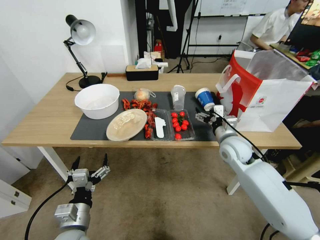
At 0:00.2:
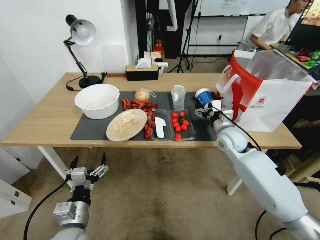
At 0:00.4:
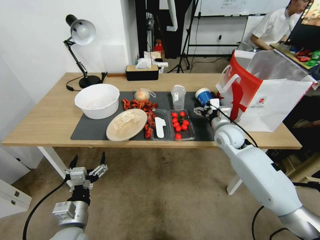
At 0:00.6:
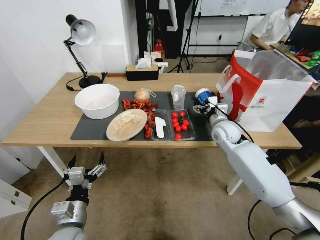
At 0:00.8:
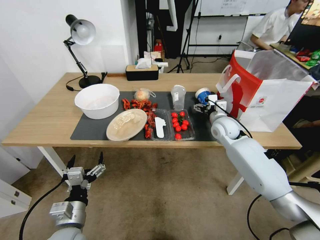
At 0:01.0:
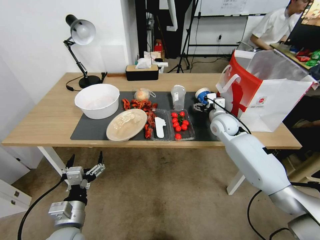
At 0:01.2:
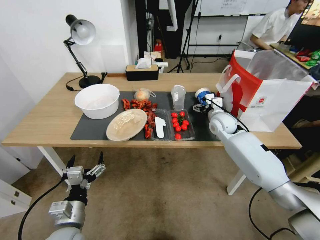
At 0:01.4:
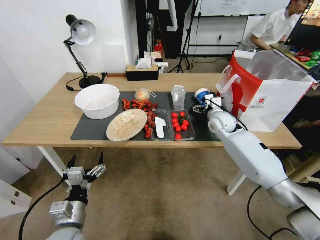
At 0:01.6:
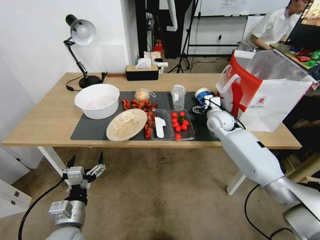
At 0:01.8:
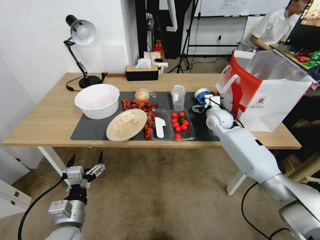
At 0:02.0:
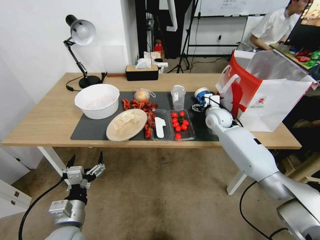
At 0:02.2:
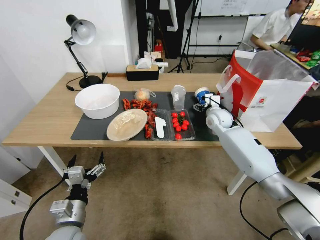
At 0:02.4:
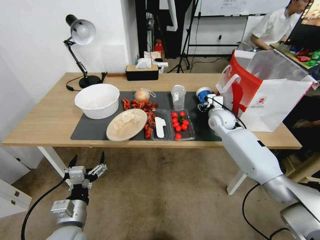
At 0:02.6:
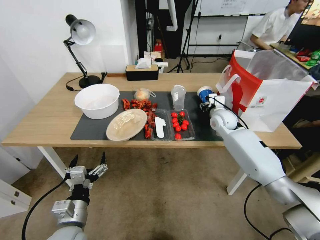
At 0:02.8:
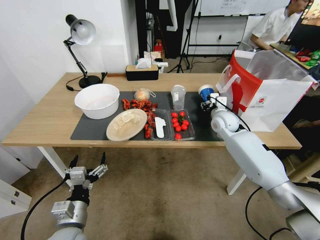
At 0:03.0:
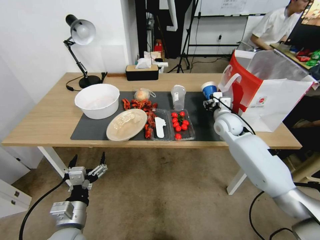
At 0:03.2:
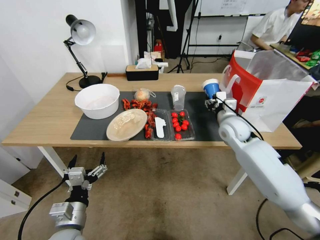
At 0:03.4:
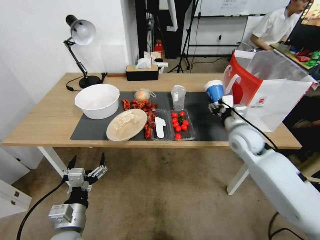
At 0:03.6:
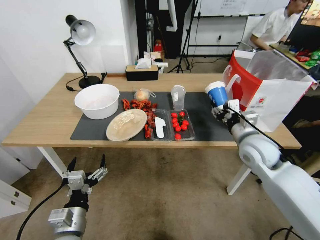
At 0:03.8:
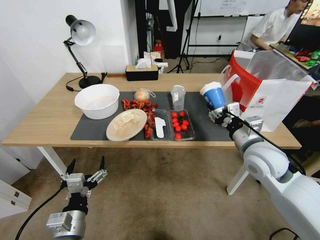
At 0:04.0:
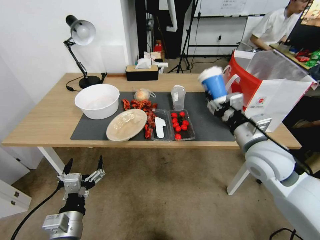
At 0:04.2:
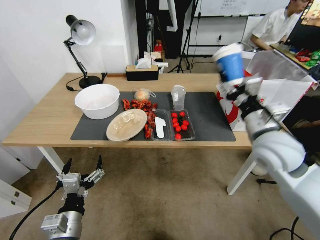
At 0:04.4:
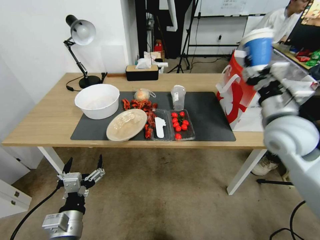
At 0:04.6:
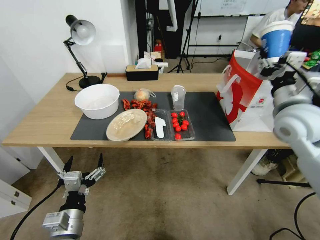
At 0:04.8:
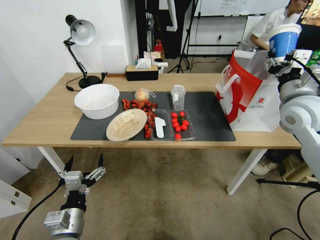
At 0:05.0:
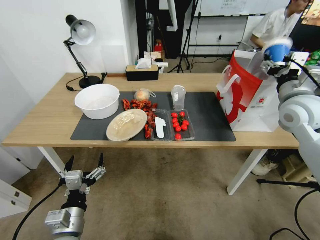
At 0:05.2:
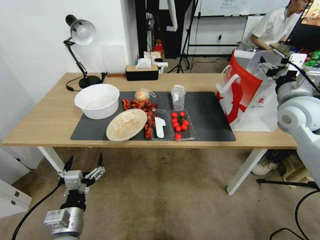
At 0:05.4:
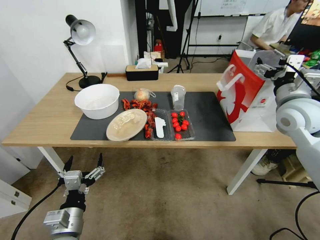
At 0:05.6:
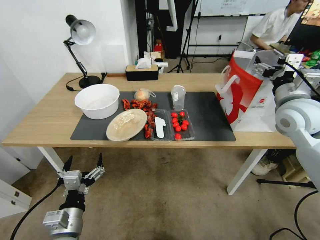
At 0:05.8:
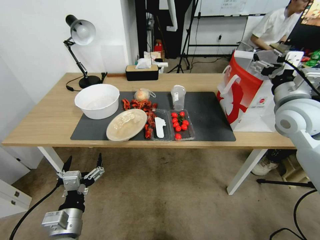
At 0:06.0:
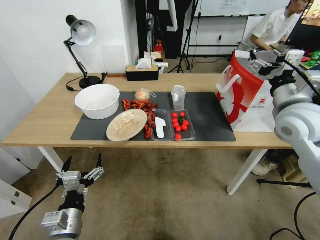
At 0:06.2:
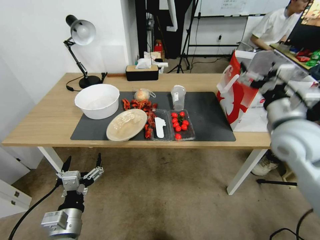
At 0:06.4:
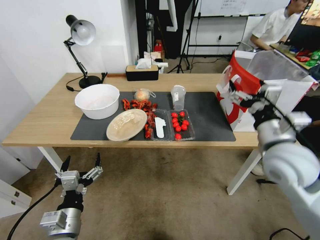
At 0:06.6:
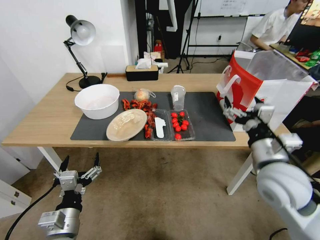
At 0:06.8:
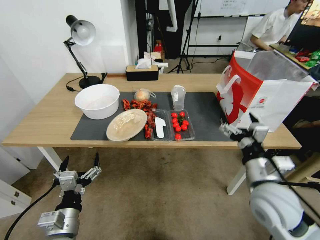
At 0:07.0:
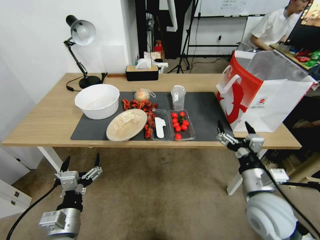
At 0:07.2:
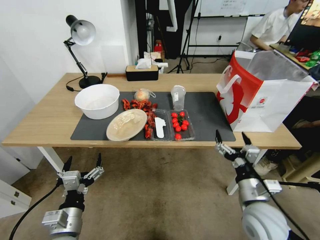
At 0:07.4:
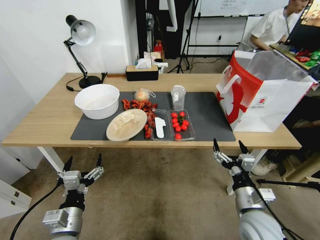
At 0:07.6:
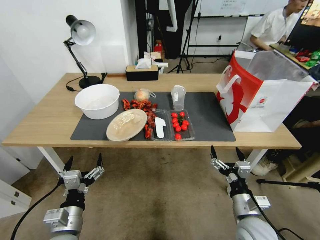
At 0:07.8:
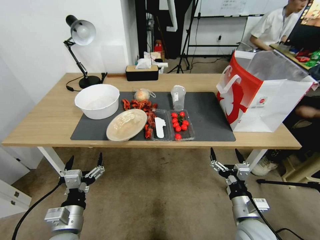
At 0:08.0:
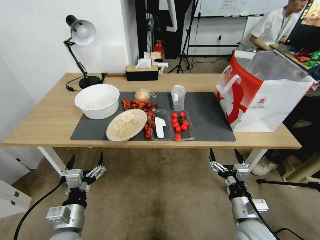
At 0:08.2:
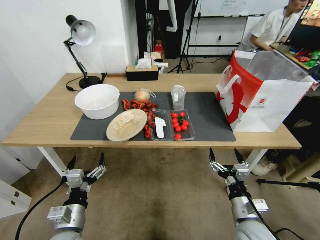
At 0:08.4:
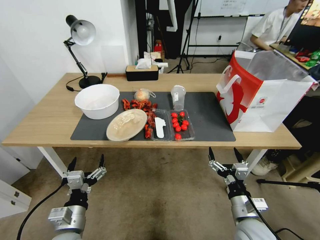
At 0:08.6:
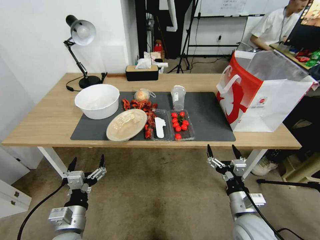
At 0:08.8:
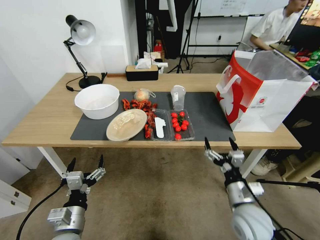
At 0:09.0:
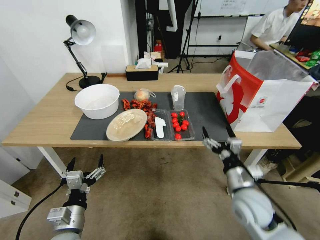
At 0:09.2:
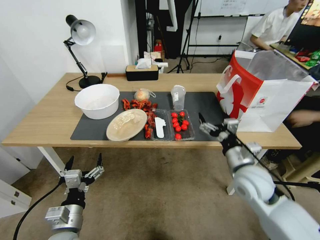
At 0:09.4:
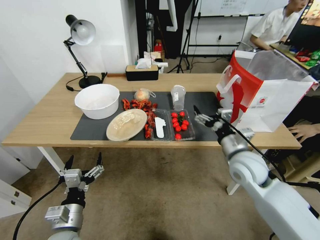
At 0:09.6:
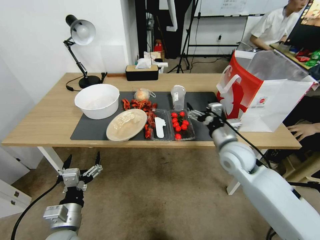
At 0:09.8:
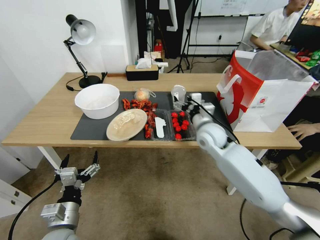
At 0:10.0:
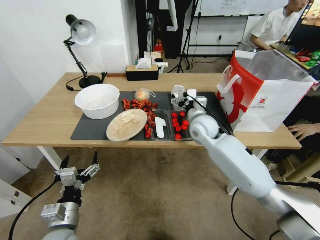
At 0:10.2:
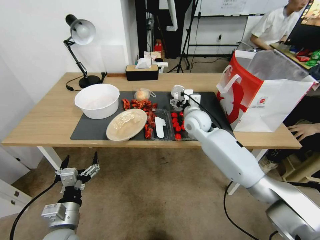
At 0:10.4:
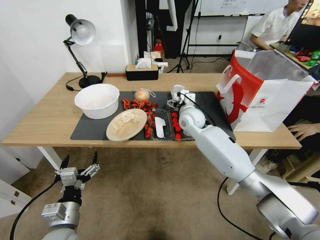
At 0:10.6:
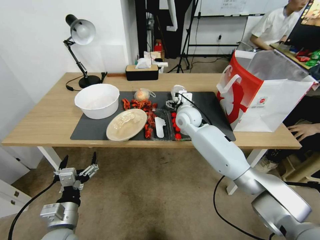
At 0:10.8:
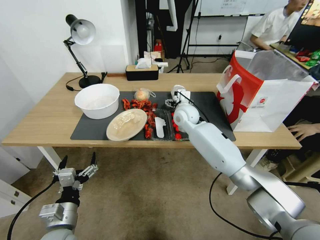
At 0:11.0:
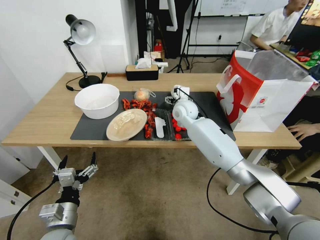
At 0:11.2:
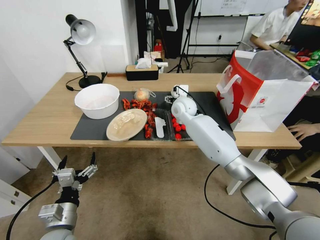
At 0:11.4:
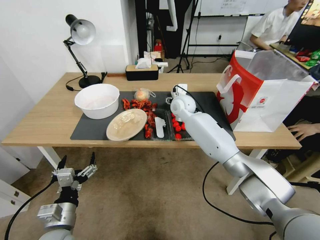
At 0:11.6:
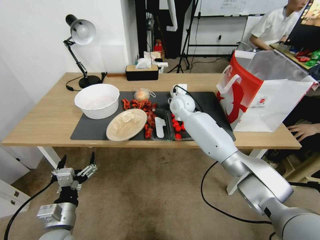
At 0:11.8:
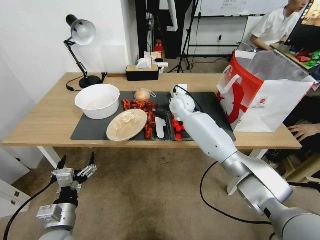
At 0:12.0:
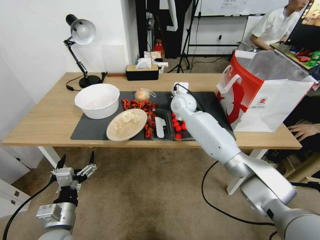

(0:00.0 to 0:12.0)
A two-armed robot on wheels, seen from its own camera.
0:00.0 - 0:01.6: The right gripper heads forward, covering about 10 cm.
0:01.6 - 0:03.0: The right gripper closes.
0:03.0 - 0:04.4: The right gripper moves backward and upward, approximately 20 cm.
0:04.4 - 0:06.0: The right gripper opens.
0:06.0 - 0:07.6: The right gripper travels downward and backward by approximately 35 cm.
0:07.6 - 0:09.0: The right gripper heads forward and upward, covering some 10 cm.
0:09.0 - 0:10.4: The right gripper travels forward and to the left by approximately 30 cm.
0:10.4 - 0:12.0: The right gripper moves roughly 5 cm, and closes its fingers.

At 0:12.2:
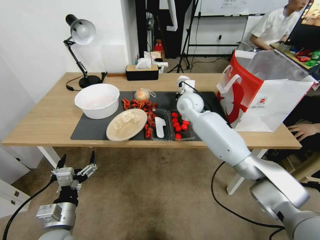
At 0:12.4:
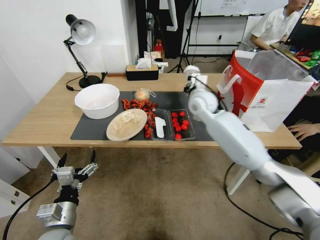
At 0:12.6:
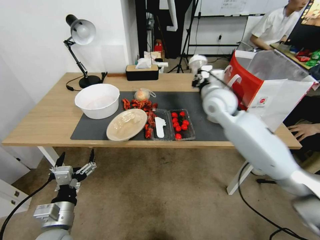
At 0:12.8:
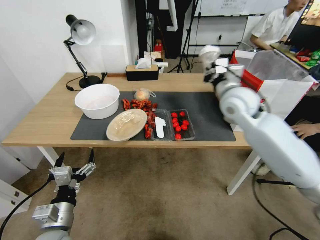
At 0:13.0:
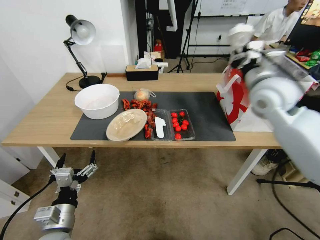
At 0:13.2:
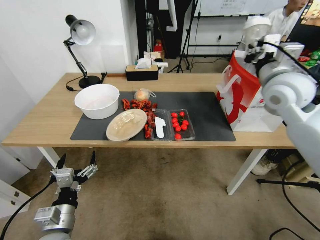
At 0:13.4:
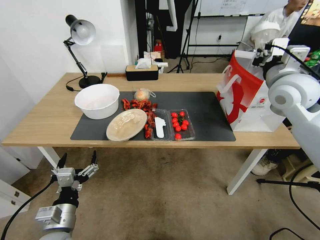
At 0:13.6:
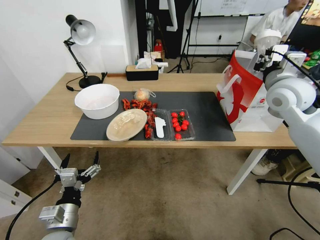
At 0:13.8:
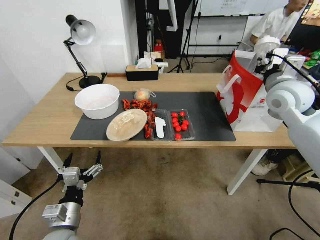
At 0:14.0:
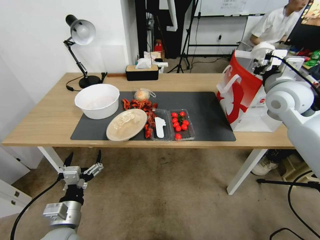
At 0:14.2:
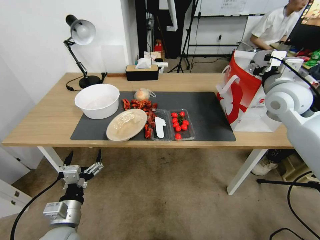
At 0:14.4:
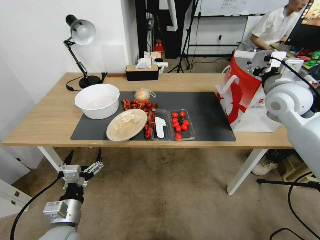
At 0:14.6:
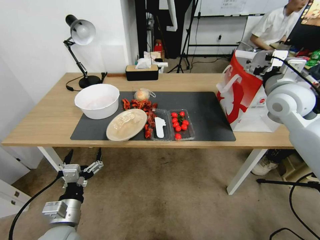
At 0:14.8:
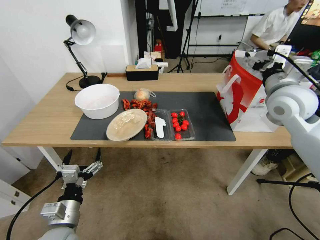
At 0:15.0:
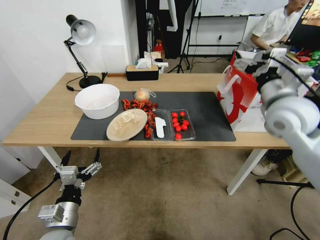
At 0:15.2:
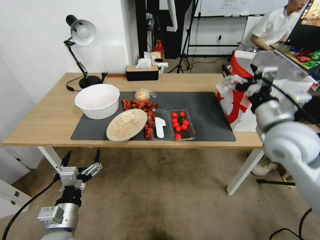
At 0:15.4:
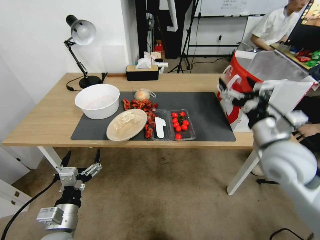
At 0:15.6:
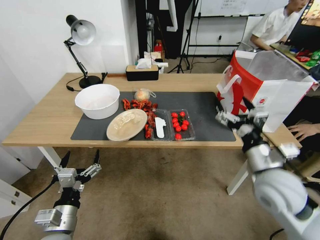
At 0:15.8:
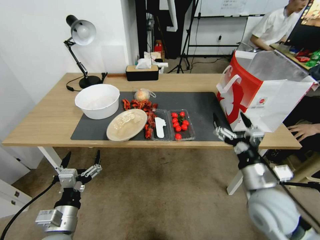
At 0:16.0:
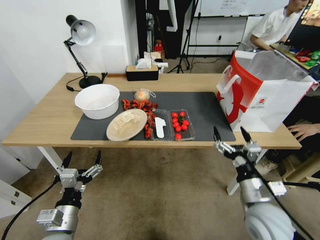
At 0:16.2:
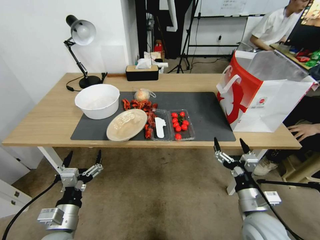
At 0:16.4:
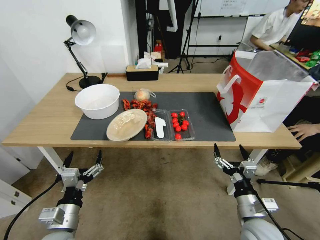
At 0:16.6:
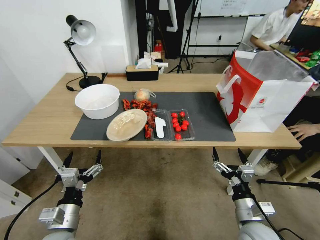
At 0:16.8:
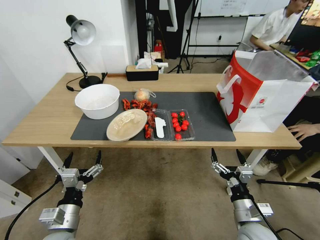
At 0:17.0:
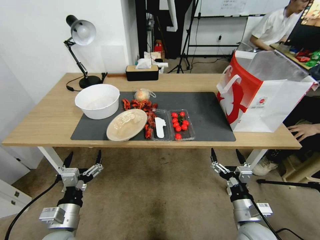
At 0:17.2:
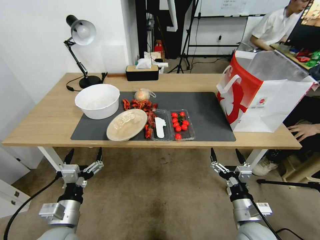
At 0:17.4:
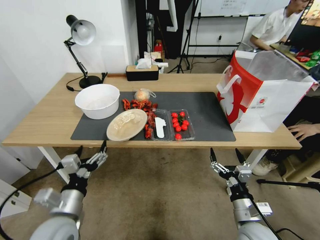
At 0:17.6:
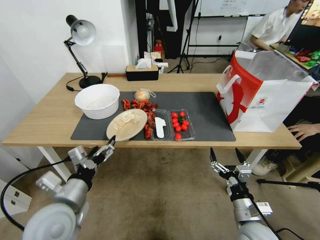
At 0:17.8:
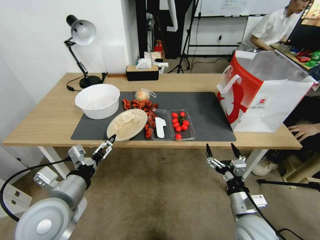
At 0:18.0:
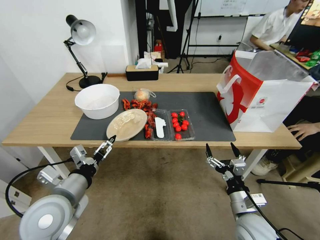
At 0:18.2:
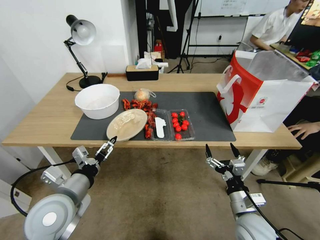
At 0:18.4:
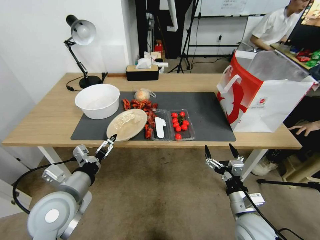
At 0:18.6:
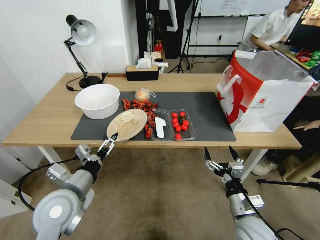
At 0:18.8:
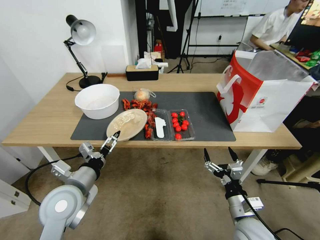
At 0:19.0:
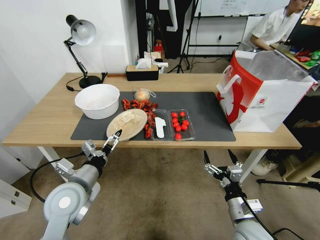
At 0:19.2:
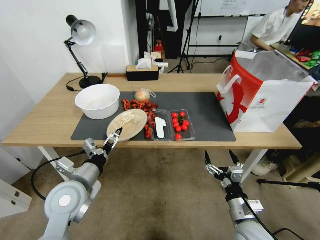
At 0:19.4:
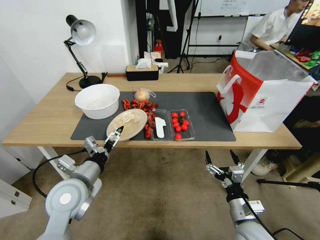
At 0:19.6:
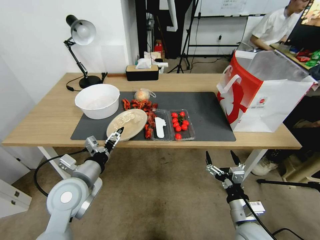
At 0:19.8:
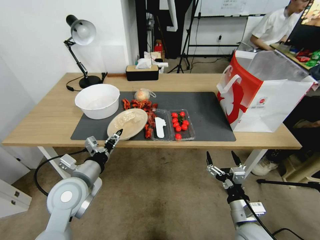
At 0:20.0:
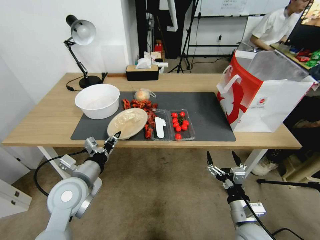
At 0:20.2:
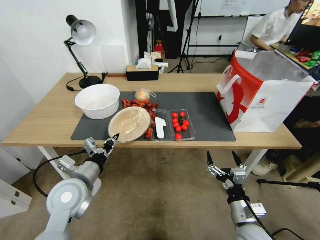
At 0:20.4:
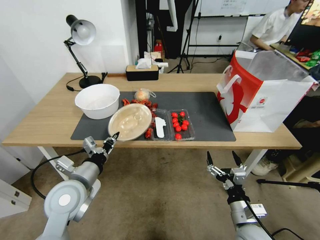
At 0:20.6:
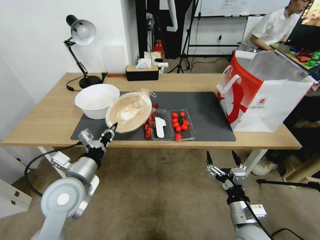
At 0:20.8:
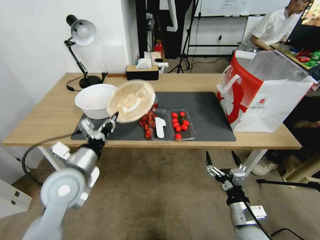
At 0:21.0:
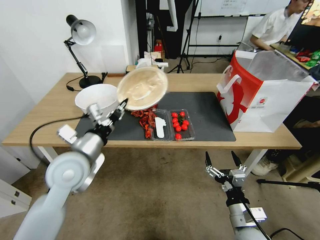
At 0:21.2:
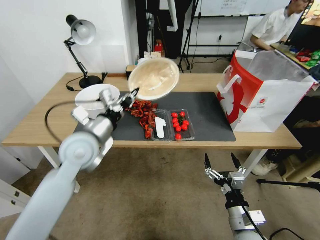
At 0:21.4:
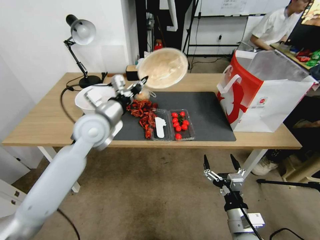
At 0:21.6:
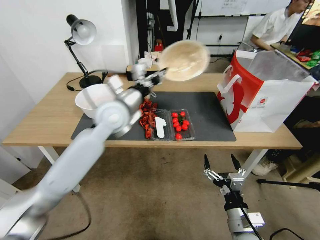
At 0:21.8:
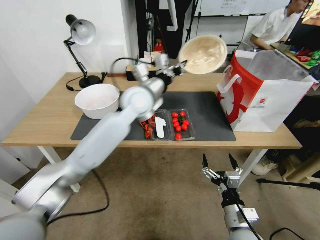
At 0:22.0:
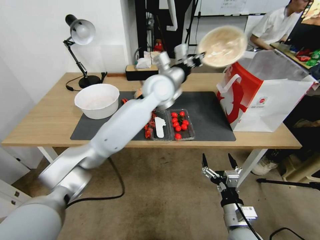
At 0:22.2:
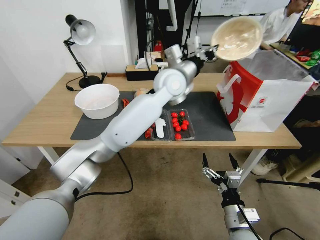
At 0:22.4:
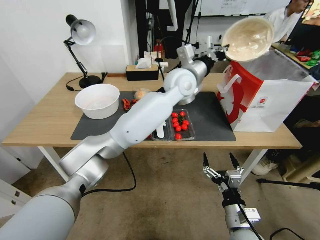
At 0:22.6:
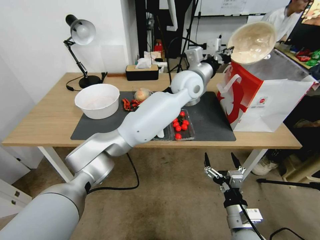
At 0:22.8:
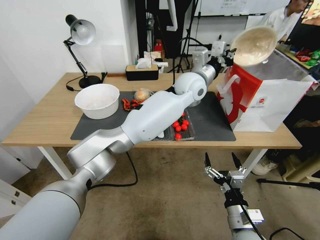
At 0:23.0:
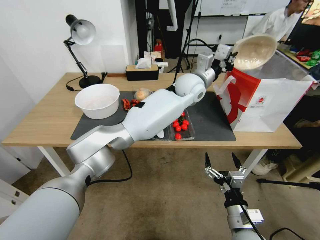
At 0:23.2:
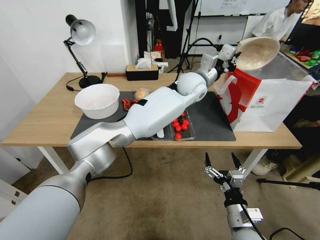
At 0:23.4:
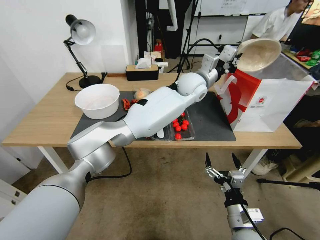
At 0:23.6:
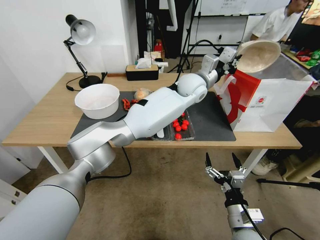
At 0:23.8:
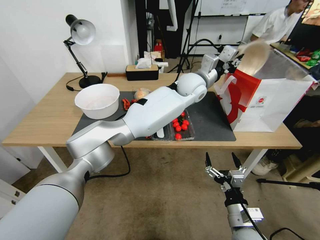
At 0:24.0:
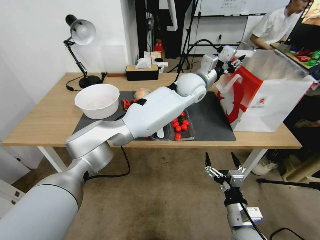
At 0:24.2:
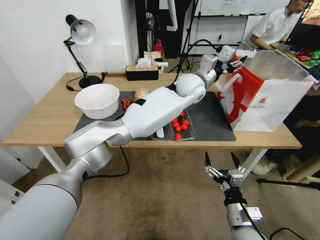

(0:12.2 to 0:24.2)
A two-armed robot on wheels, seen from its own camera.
0:12.2 - 0:13.8: The right gripper goes some 25 cm to the right, upward and backward.
0:13.8 - 0:15.2: The right gripper heads backward, covering about 10 cm, and opens its fingers.
0:15.2 - 0:16.6: The right gripper moves downward and backward, about 30 cm.
0:16.6 - 0:18.2: The left gripper moves upward and forward, roughly 10 cm.
0:18.2 - 0:19.8: The left gripper moves approximately 5 cm, and closes up.
0:19.8 - 0:21.2: The left gripper shifts some 15 cm forward and upward, and closes.
0:21.2 - 0:22.6: The left gripper is displaced to the right and forward by roughly 35 cm.
0:22.6 - 0:24.2: The left gripper opens its fingers.
